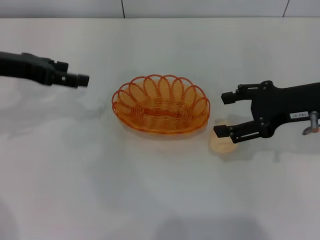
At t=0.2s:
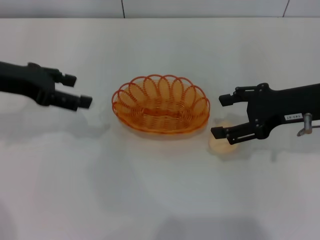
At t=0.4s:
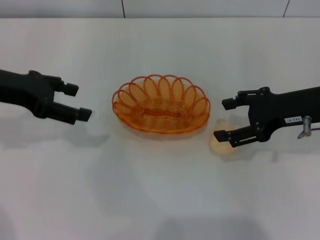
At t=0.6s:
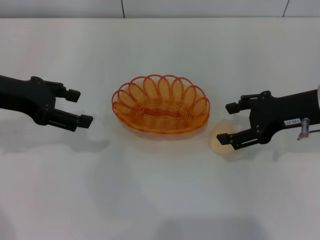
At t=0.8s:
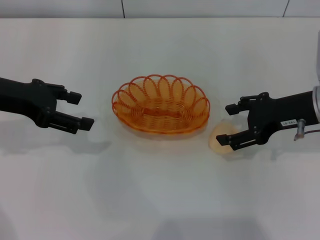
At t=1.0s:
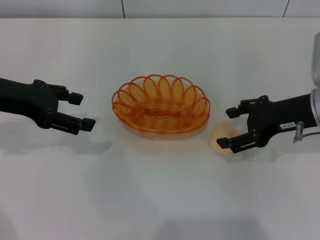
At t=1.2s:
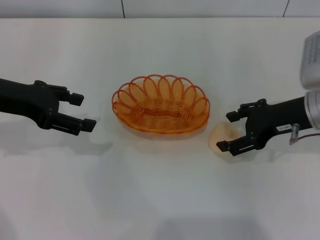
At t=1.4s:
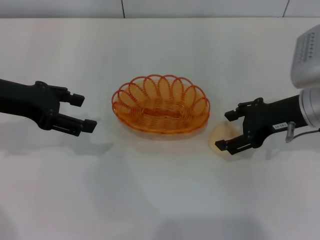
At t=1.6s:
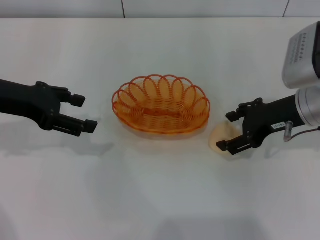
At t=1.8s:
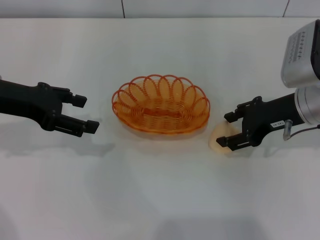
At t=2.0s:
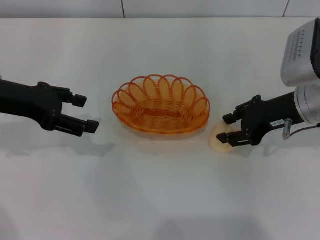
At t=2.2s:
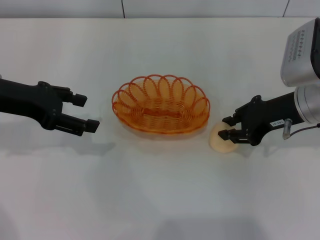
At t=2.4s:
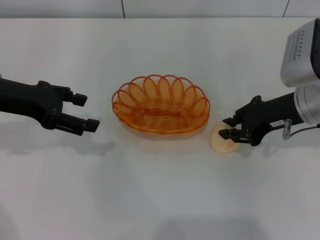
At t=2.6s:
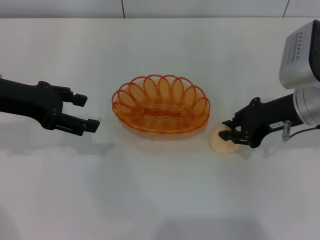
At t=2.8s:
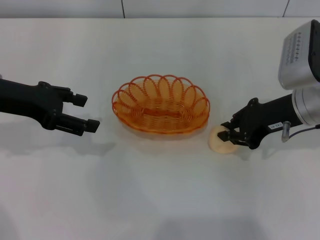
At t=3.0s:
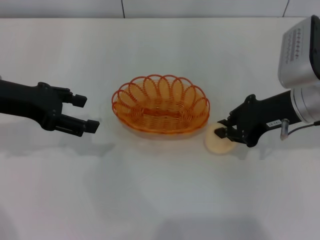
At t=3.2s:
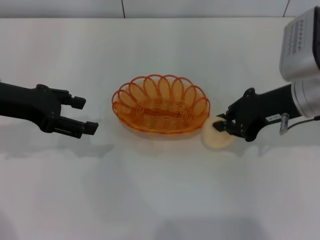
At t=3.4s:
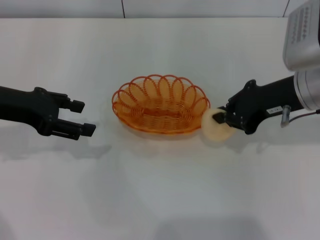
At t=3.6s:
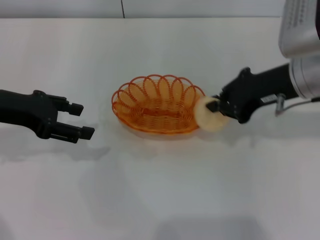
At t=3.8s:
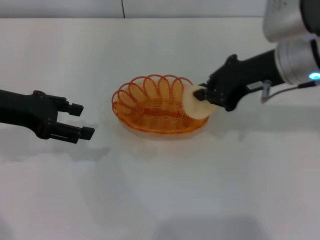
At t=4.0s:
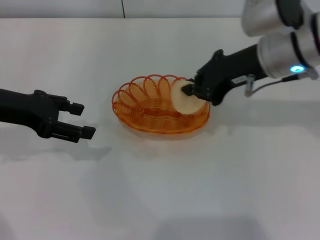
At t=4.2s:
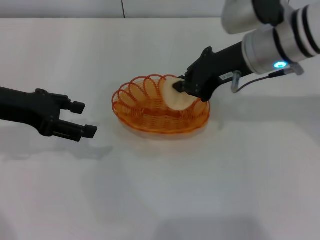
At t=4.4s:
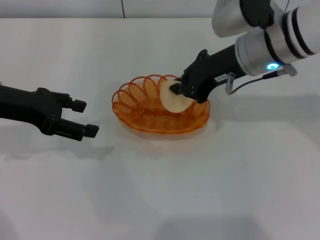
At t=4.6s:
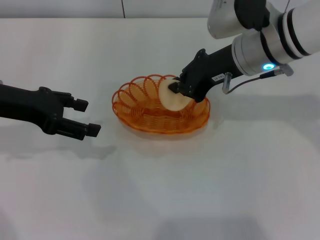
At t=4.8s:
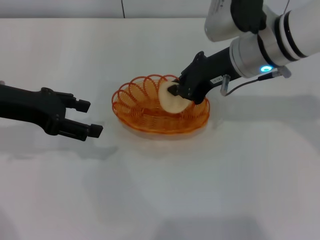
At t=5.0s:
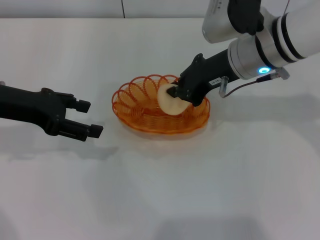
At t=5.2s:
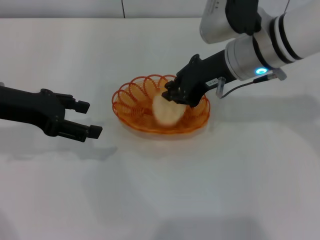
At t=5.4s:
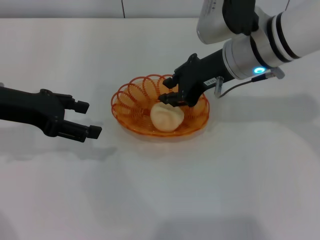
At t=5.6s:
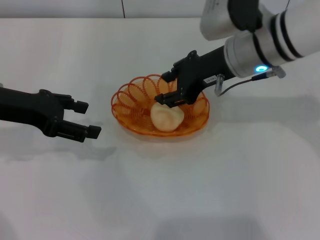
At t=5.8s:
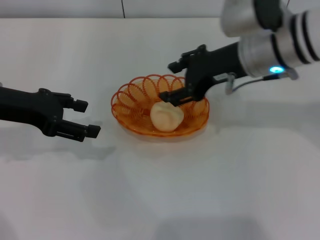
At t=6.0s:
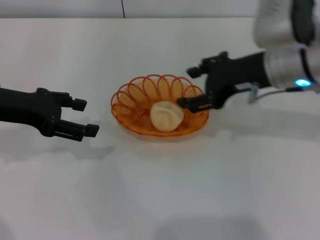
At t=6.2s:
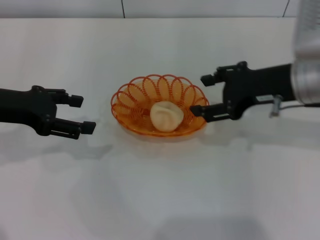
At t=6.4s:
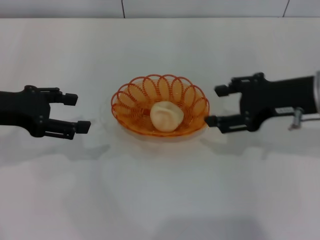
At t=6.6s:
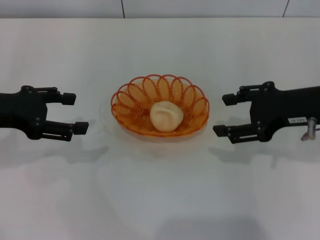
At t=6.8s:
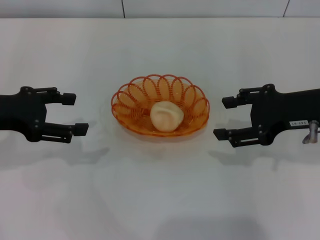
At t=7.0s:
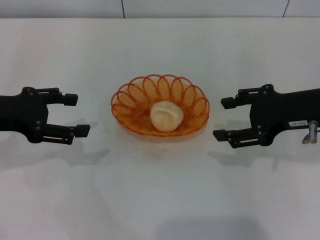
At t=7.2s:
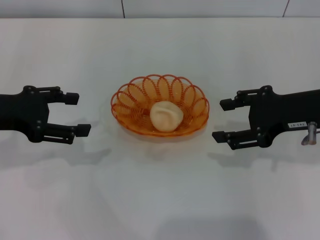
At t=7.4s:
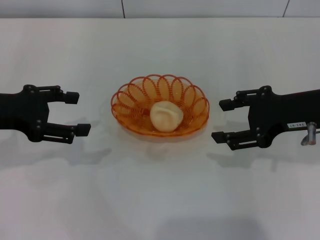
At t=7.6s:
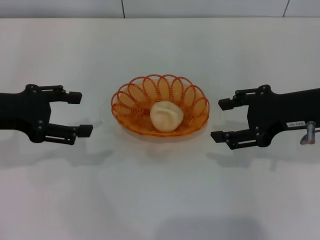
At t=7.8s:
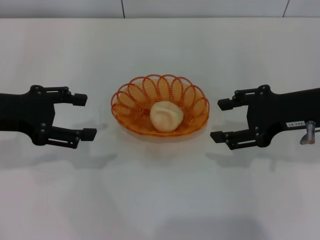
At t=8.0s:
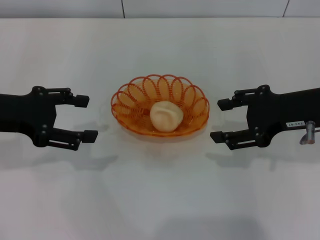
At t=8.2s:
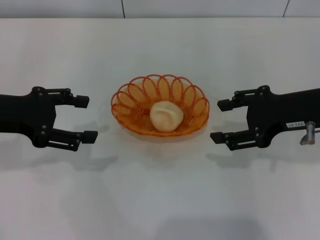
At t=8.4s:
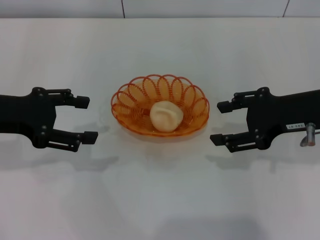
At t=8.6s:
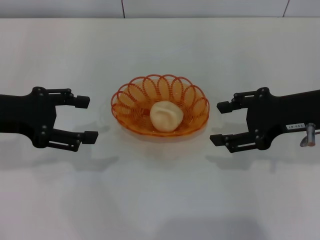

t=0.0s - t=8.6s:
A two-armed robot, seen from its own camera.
Step, t=0.0s - t=3.4s: Pick up the egg yolk pastry with the right gripper.
Step, t=3.6s - t=6.2s: Place the egg yolk pastry into the basket with the right gripper.
t=0.0s - t=1.4s: The grippers move only a little.
t=1.4s - t=2.8s: The right gripper closes its fingers.
t=2.8s - t=4.4s: The right gripper goes approximately 10 cm to the left and upward.
t=4.4s - t=5.8s: The right gripper opens.
t=5.8s - t=7.2s: The right gripper shifts approximately 10 cm to the right and backward.
t=7.2s - t=8.6s: There are only small adjustments of the grippers.

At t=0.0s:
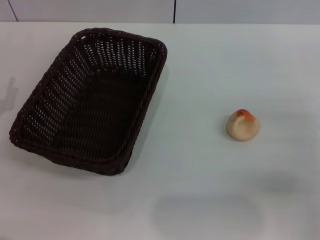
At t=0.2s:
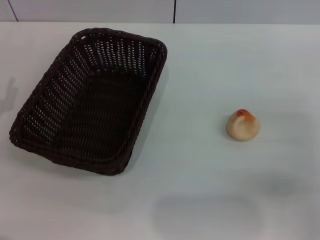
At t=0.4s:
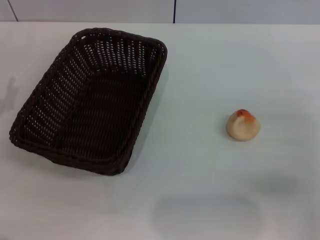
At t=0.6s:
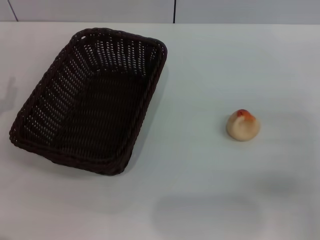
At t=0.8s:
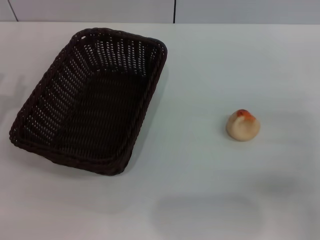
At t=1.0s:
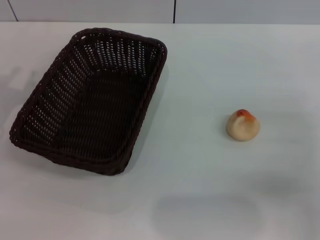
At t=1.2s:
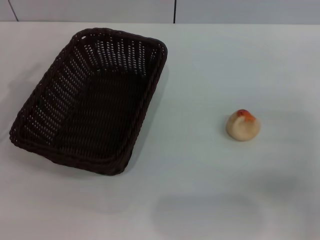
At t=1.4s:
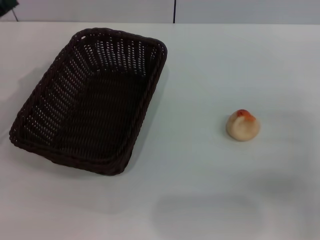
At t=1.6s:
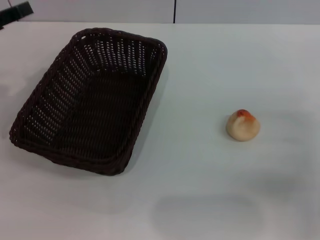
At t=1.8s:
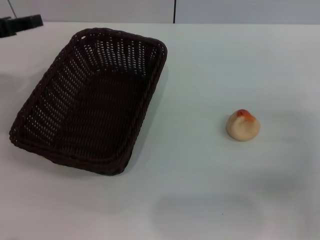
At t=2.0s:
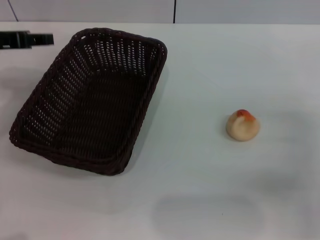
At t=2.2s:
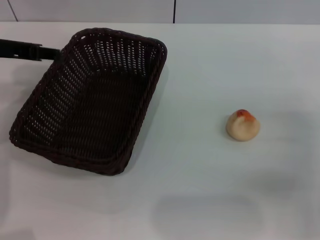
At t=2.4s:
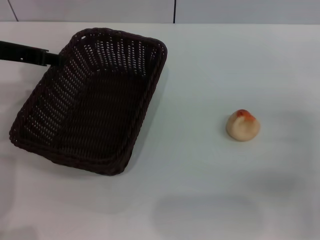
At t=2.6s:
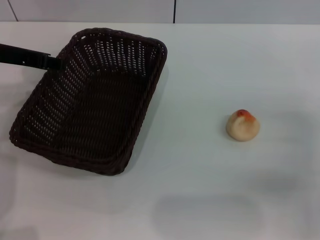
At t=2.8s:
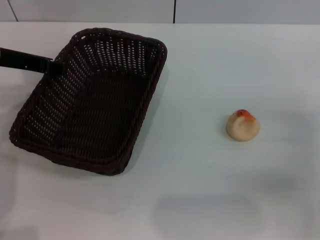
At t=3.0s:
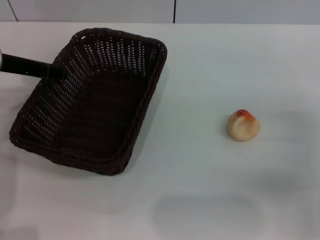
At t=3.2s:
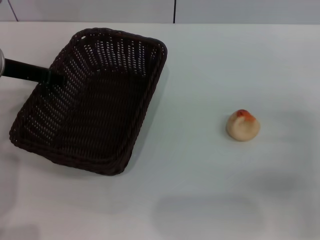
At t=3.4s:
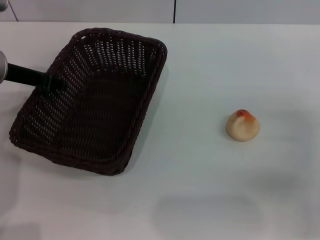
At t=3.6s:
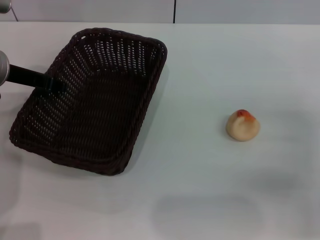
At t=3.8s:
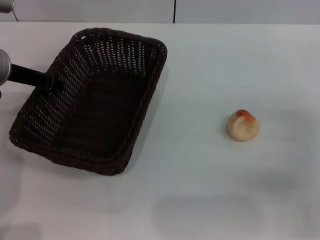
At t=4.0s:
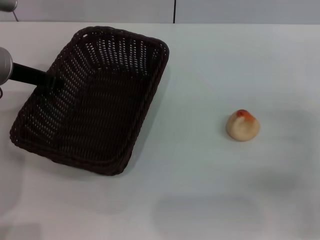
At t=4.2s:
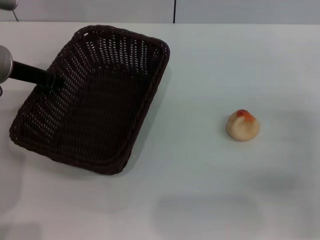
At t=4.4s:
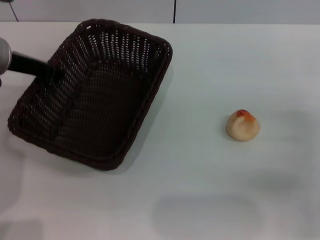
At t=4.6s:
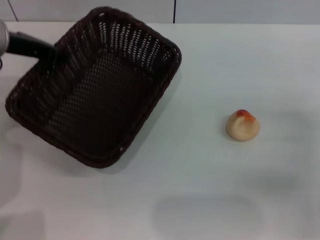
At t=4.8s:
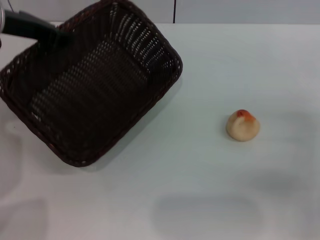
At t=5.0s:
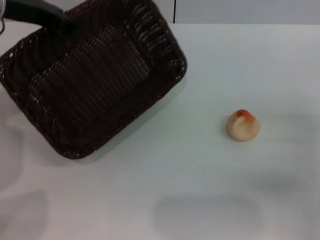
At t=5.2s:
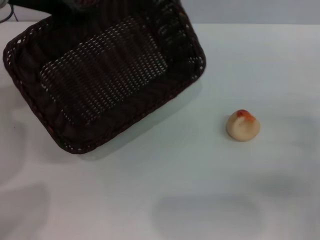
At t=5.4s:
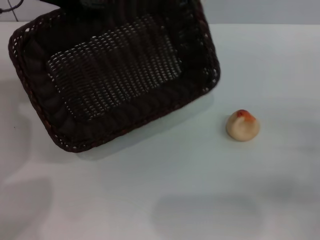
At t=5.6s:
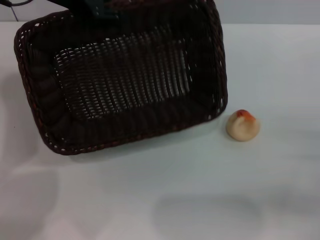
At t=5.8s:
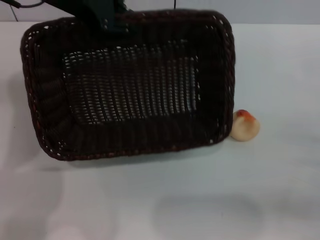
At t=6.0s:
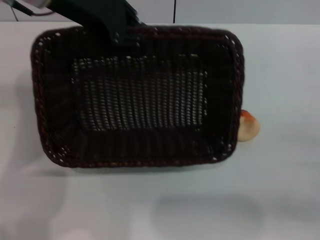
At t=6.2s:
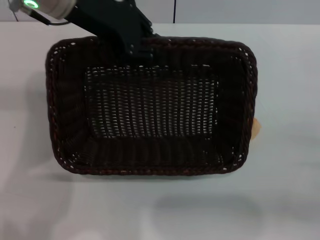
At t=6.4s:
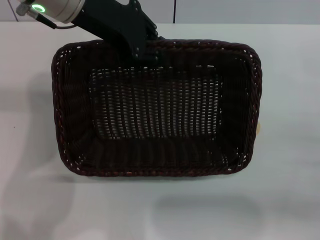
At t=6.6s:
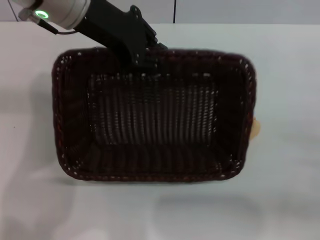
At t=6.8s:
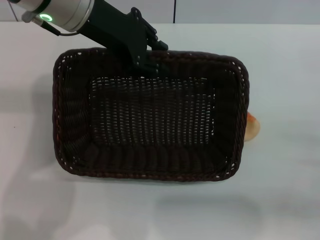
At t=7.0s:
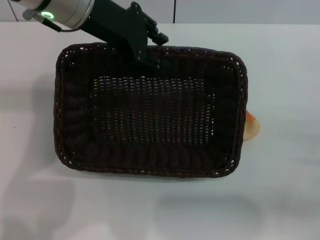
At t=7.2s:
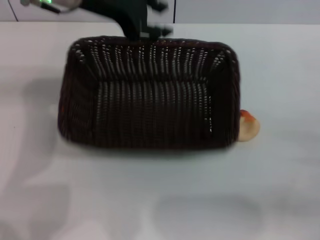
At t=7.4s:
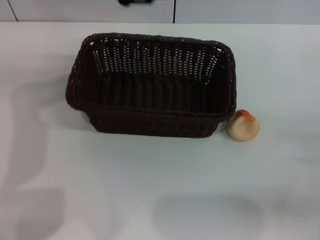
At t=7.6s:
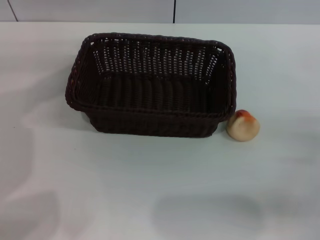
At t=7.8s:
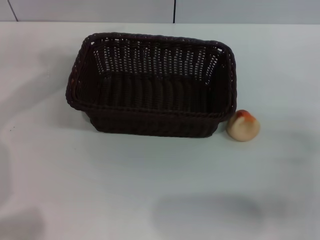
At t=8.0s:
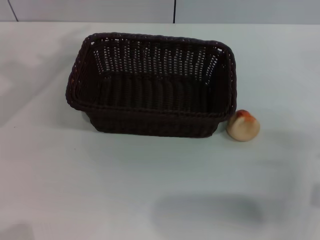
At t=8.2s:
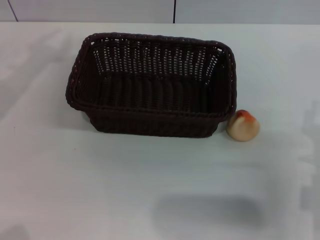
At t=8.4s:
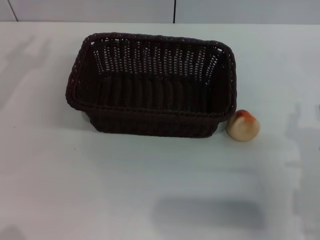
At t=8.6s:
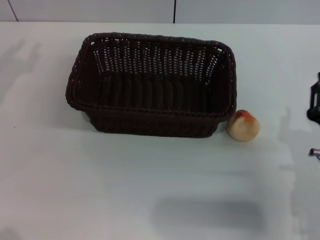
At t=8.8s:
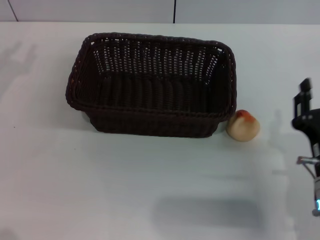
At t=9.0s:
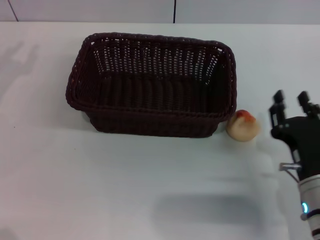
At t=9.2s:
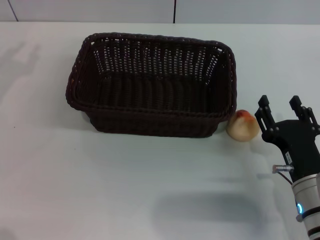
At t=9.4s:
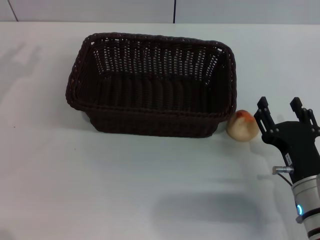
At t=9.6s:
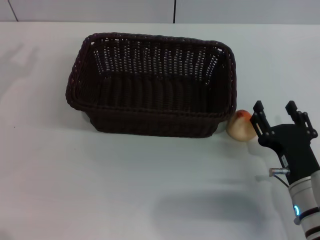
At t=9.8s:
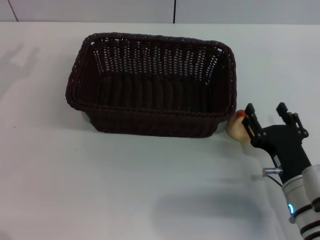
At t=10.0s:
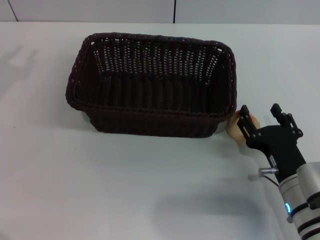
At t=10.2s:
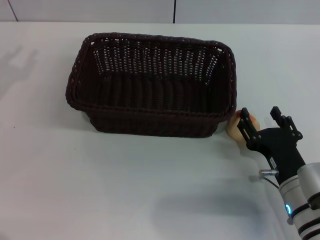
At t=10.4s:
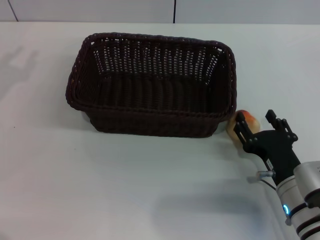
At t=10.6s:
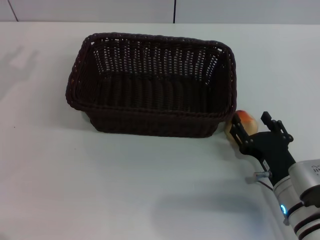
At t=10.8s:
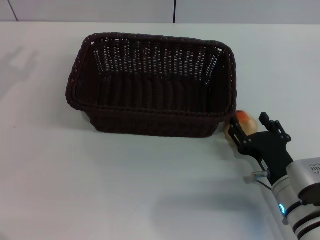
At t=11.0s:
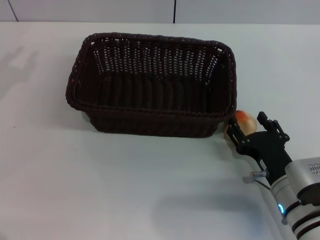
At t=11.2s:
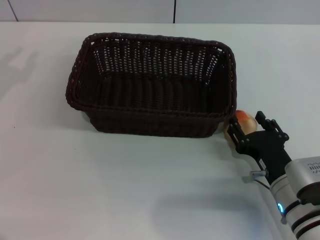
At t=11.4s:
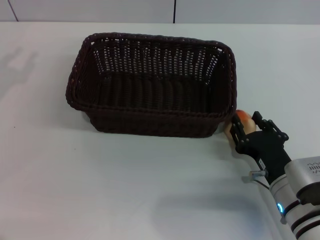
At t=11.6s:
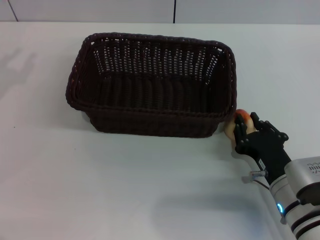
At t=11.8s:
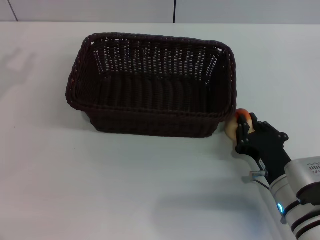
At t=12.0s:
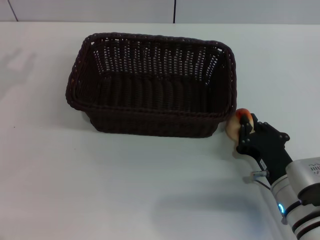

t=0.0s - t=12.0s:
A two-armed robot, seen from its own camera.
Step, t=0.0s - t=7.2s: Move the basket to the center of view with the left gripper.
t=0.0s - t=1.6s: The left gripper heads upward and forward, covering about 15 cm.
t=1.6s - t=3.0s: The left gripper travels to the right by about 5 cm.
t=3.0s - t=4.4s: The left gripper closes up.
t=4.4s - t=6.0s: The left gripper shifts about 15 cm upward and to the right. Meanwhile the right gripper ends up some 5 cm from where it was.
t=6.0s - t=7.6s: The left gripper opens up.
t=7.6s - t=9.0s: The left gripper moves to the left, downward and backward, some 20 cm, while the right gripper moves to the left, some 10 cm.
t=9.0s - t=10.4s: The grippers make only small movements.
t=10.4s - t=12.0s: The right gripper closes.

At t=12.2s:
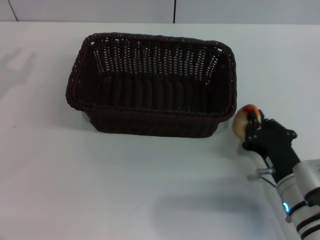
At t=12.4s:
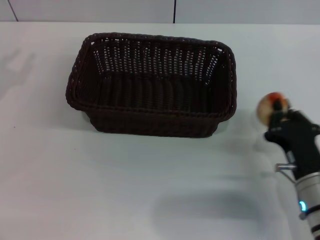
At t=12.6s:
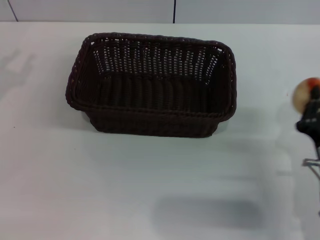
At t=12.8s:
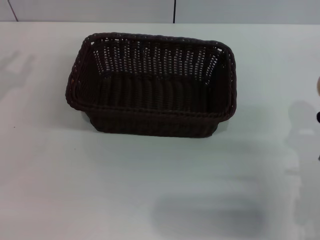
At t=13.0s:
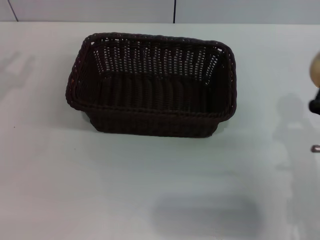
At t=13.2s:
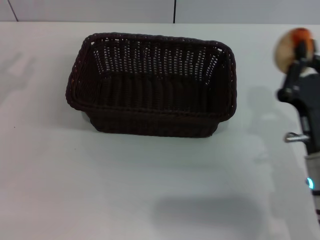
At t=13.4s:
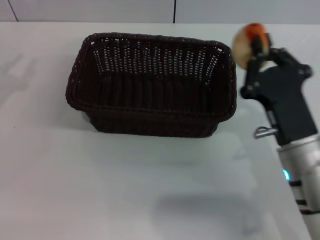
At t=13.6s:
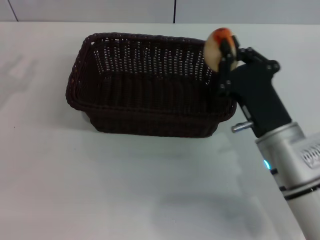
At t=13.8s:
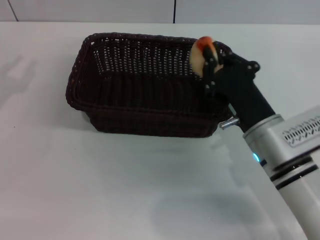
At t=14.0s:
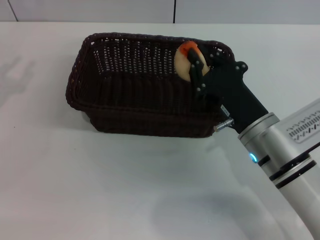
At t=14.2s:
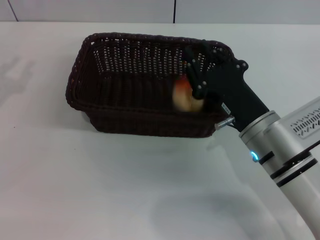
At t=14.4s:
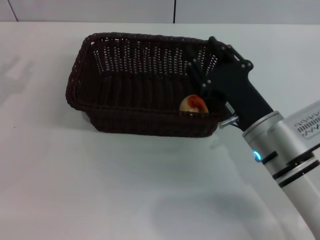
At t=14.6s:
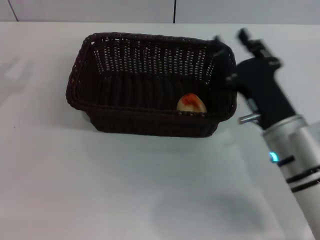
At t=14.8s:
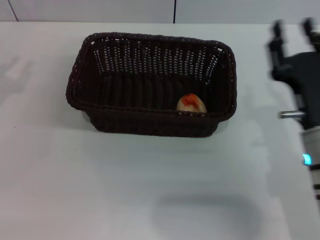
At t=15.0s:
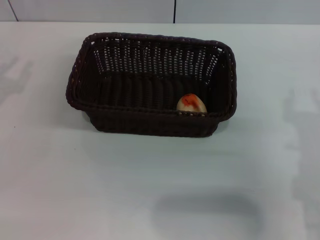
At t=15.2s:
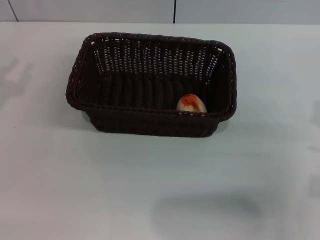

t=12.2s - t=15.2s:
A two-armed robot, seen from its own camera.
Step, t=12.4s - t=14.0s: Place the egg yolk pastry into the basket with the right gripper.
t=12.2s - t=13.8s: The right gripper heads upward and forward, covering roughly 10 cm.
t=13.8s - t=15.2s: The right gripper is displaced to the right by about 10 cm, and opens its fingers.
